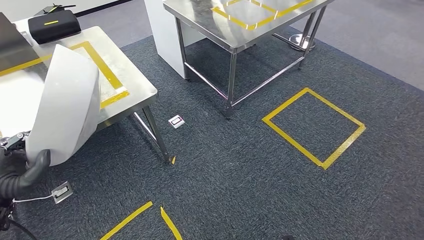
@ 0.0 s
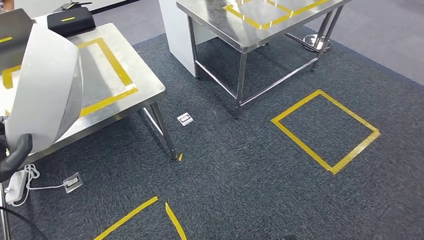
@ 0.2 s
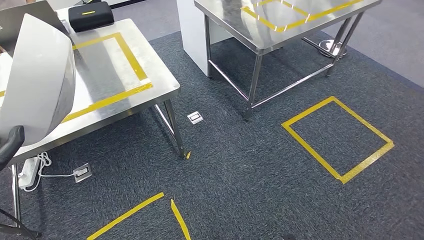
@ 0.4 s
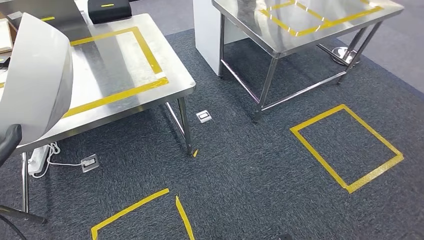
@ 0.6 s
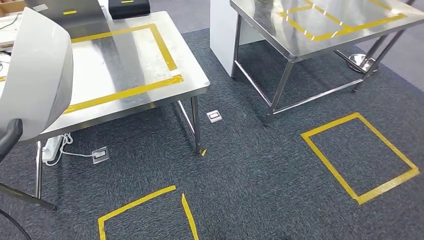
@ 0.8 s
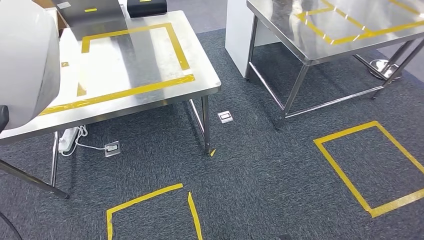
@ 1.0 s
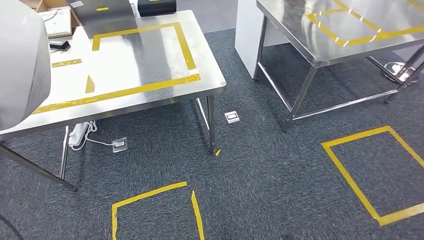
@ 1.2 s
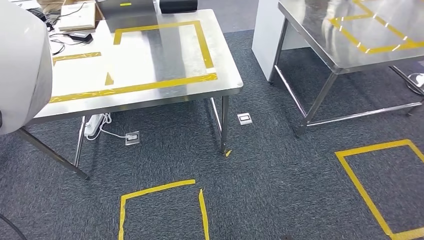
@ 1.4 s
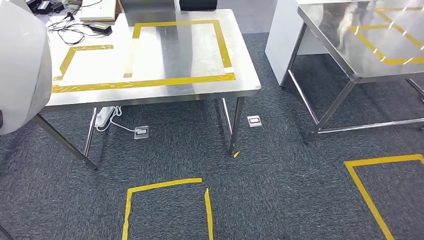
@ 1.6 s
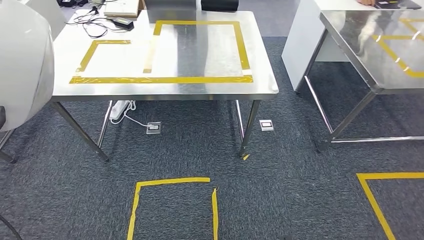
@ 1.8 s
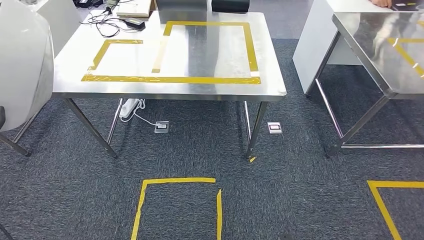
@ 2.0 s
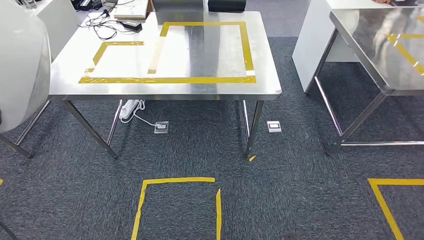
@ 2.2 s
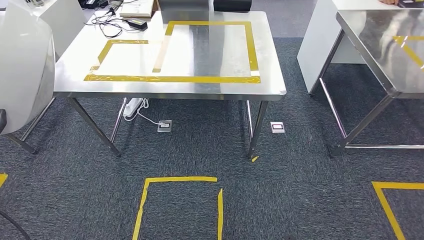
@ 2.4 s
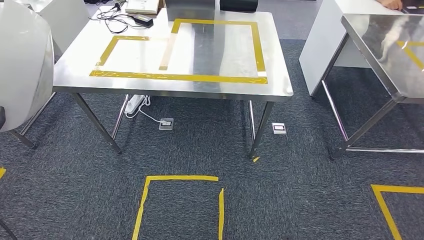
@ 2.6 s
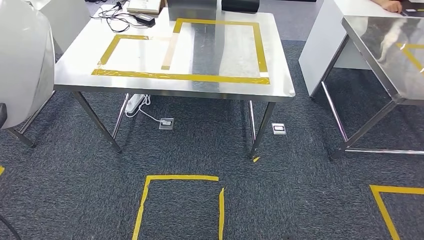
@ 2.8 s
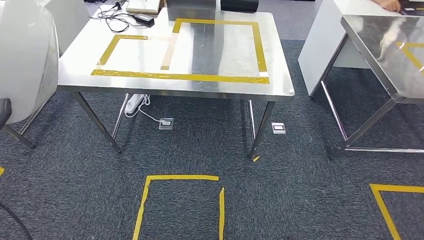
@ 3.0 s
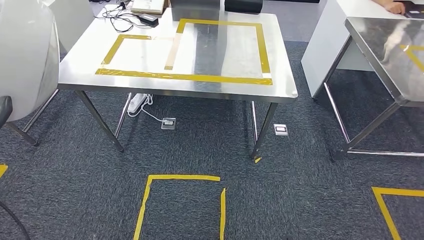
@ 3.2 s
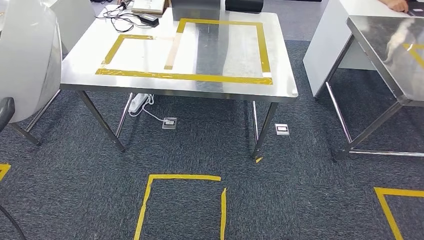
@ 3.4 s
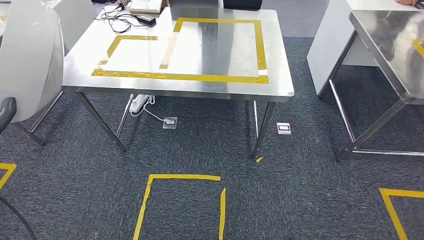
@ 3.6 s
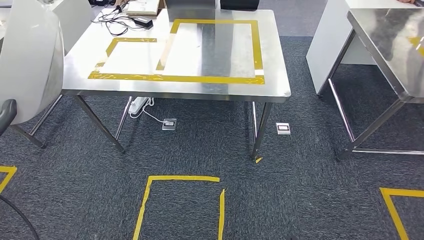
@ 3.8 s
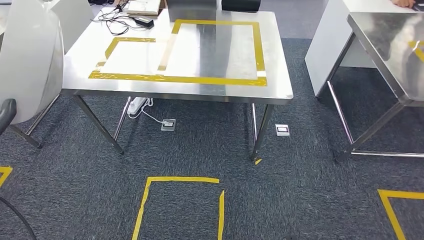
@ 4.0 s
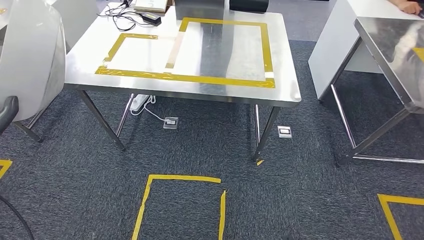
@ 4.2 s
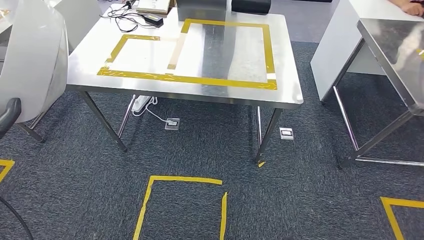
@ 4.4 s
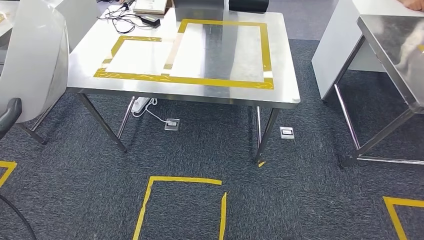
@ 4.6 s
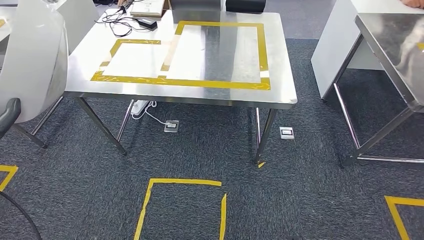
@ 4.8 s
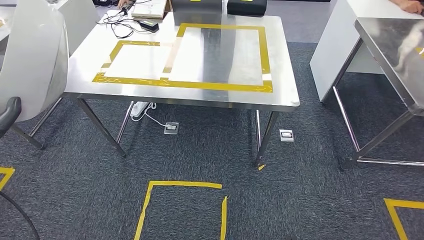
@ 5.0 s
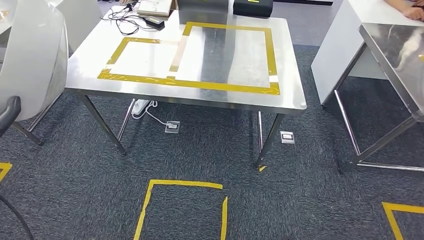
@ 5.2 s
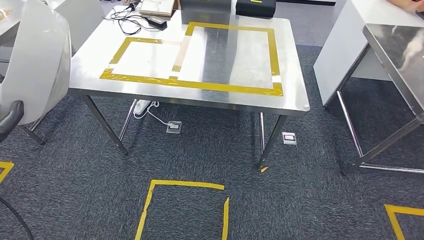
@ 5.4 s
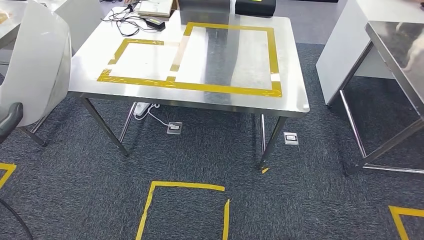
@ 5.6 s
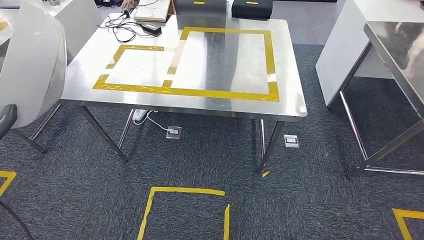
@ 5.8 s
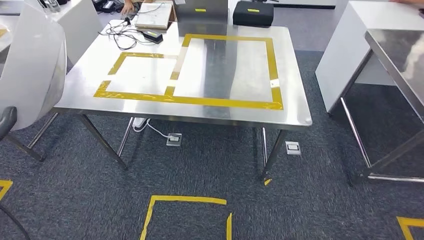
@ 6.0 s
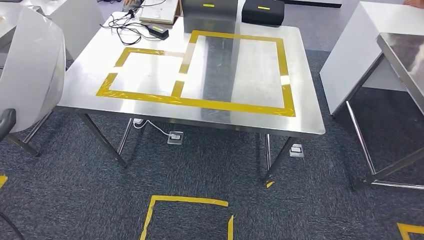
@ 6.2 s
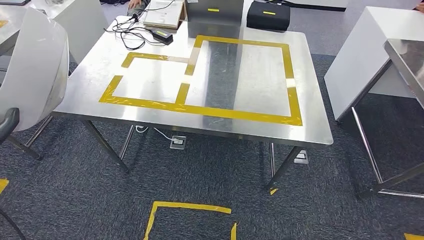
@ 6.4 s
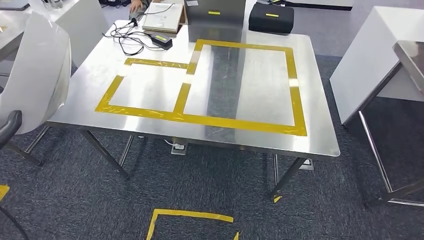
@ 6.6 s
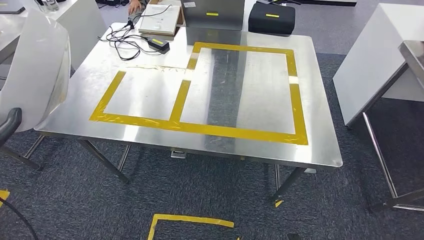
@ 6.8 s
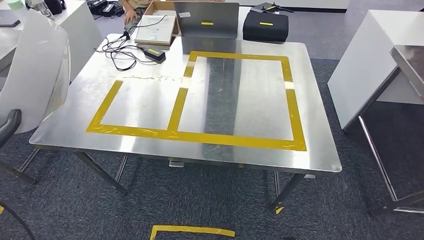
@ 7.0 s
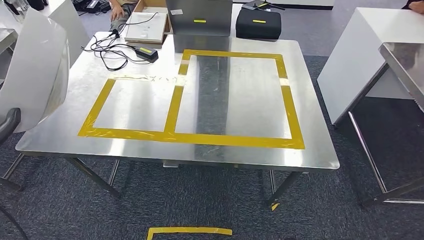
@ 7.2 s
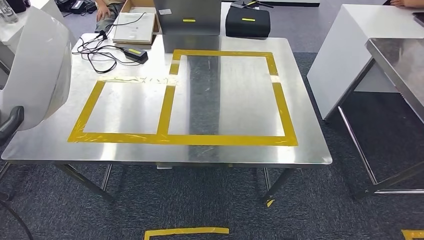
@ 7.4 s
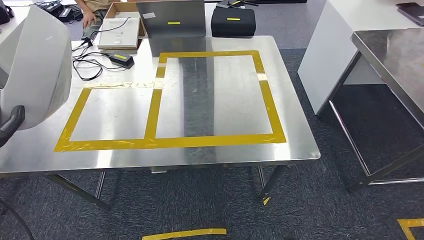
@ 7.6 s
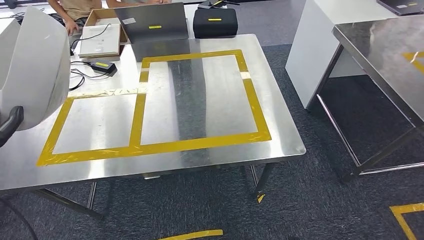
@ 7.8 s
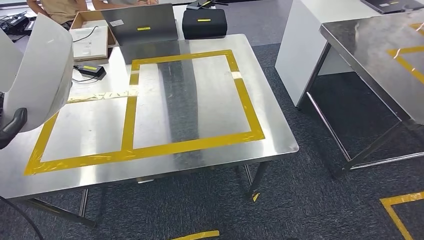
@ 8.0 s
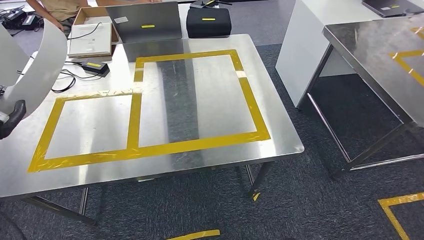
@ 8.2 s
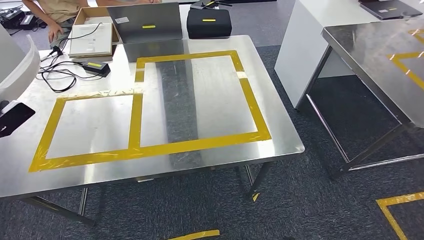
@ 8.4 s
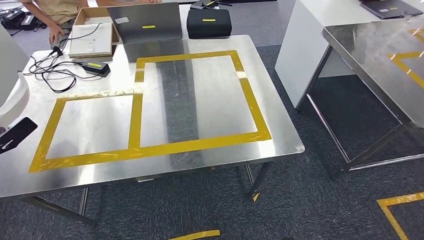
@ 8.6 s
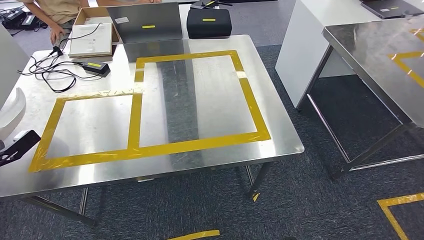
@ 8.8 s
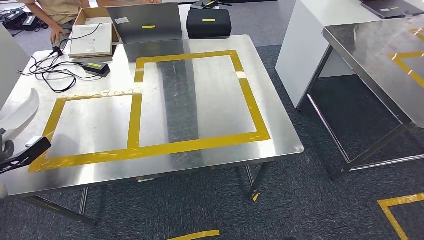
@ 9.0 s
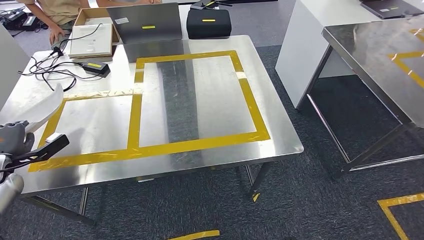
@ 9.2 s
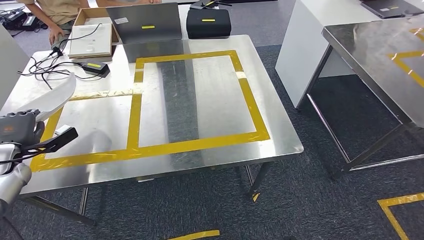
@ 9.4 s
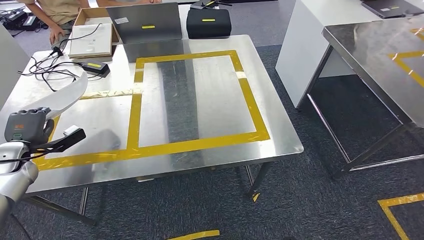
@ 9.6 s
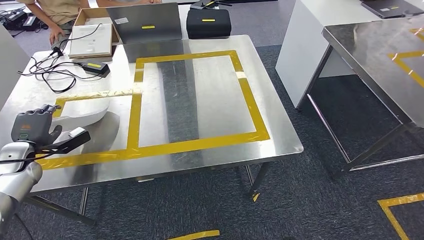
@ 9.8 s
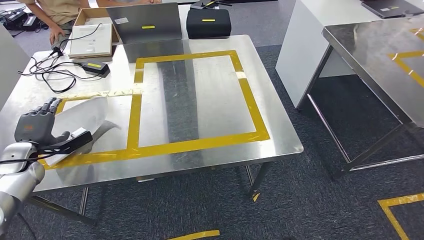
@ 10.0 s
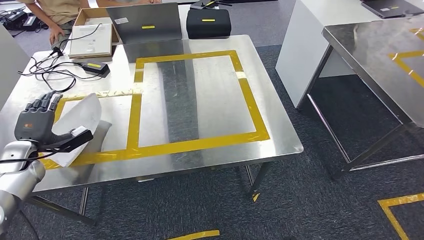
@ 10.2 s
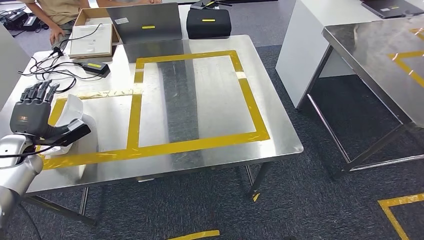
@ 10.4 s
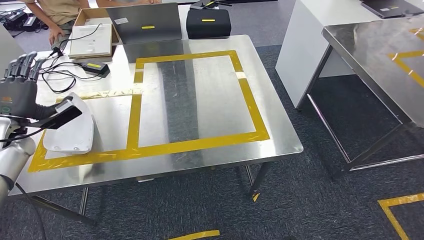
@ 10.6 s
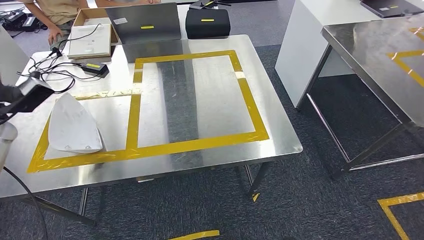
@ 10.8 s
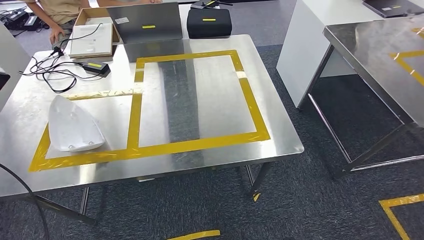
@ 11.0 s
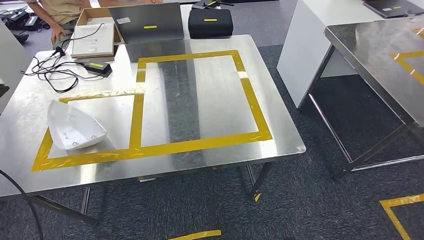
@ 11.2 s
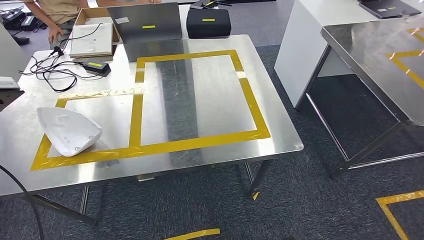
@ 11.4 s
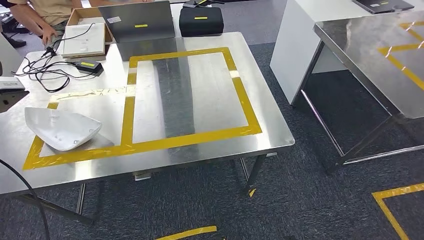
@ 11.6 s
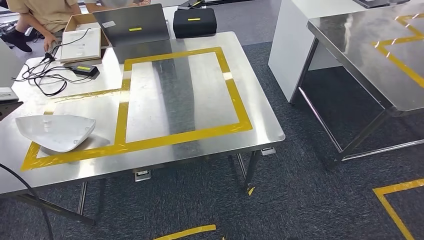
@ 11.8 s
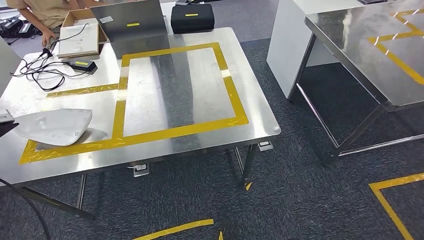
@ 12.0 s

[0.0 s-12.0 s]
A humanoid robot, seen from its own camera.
Step, 0.0 to 7.6 s: Move the small component to the workbench.
Step, 8.0 to 12.0 s: Insert the small component into the corresponding slot on the workbench.
9.0 to 10.4 s: The left hand heads to the right and forward, covering roughly 10 cm.

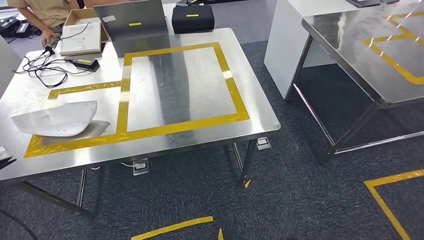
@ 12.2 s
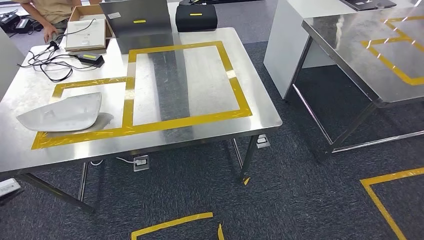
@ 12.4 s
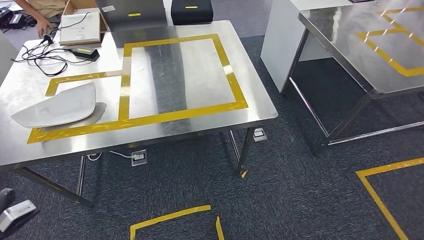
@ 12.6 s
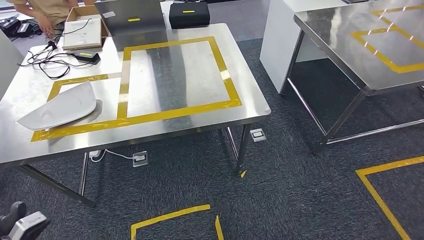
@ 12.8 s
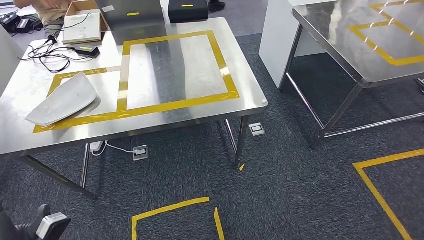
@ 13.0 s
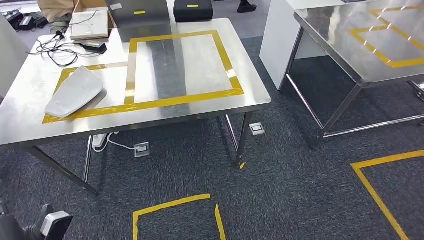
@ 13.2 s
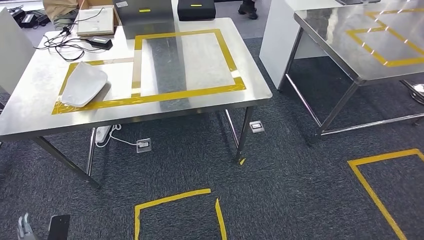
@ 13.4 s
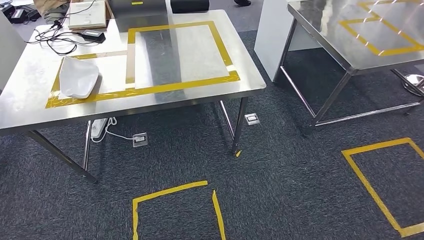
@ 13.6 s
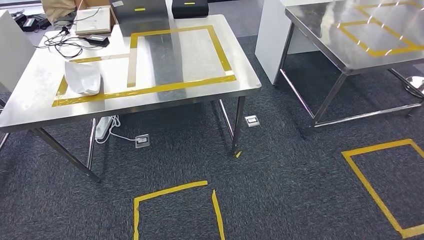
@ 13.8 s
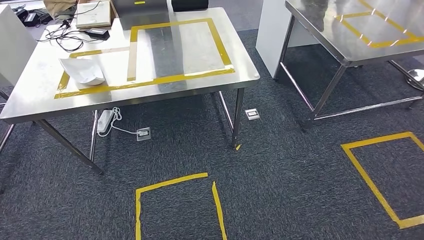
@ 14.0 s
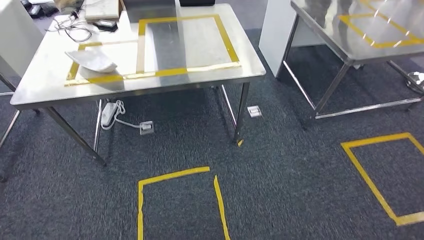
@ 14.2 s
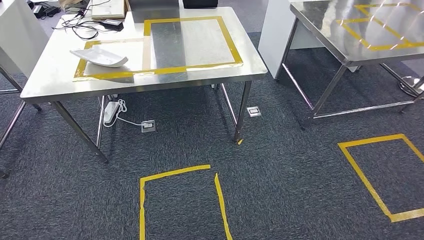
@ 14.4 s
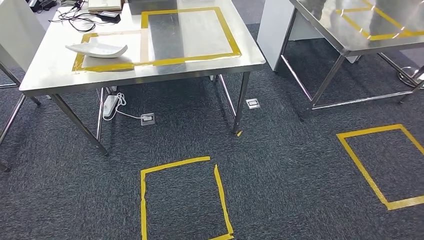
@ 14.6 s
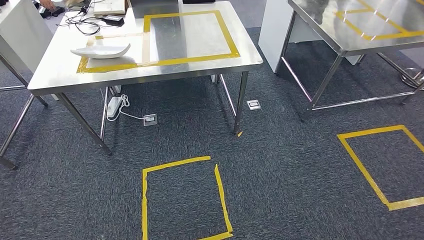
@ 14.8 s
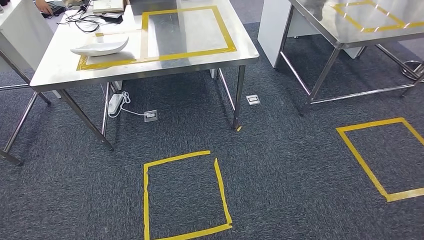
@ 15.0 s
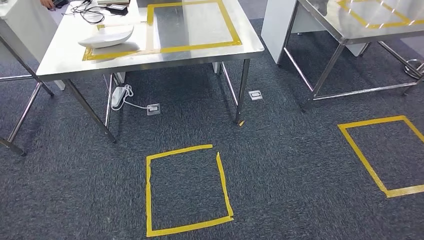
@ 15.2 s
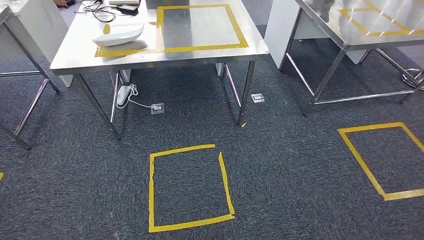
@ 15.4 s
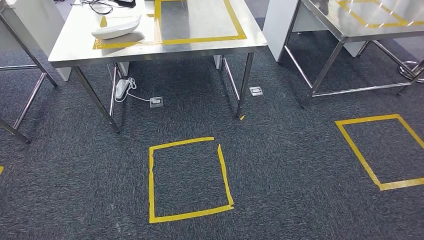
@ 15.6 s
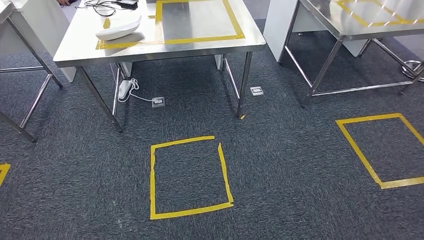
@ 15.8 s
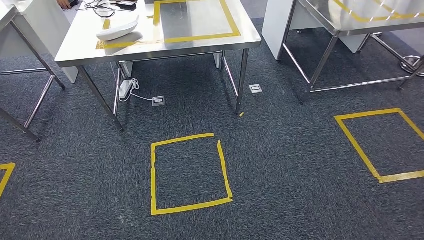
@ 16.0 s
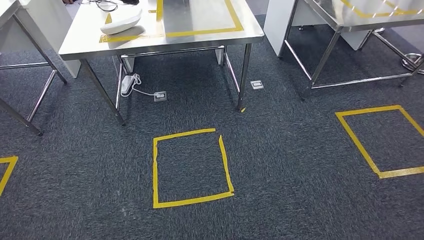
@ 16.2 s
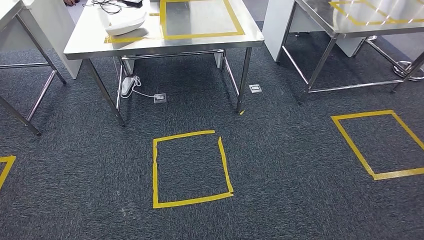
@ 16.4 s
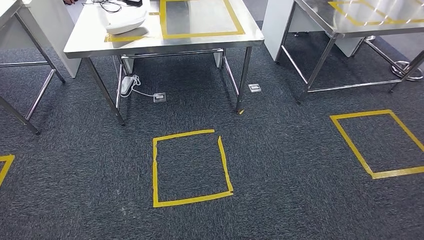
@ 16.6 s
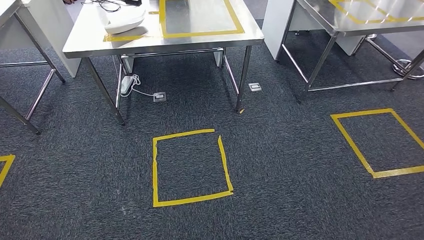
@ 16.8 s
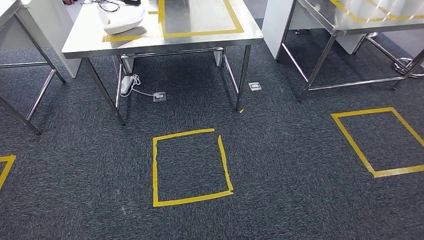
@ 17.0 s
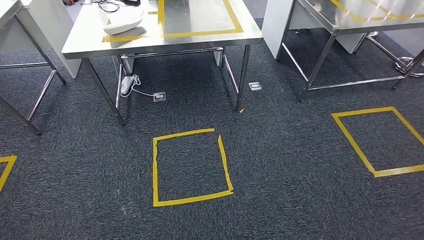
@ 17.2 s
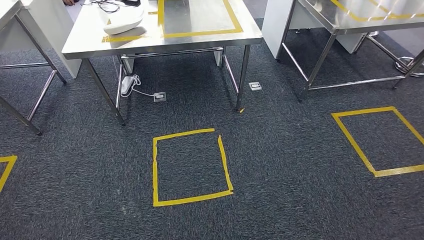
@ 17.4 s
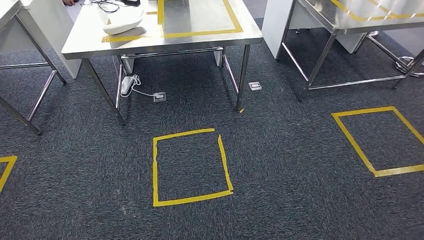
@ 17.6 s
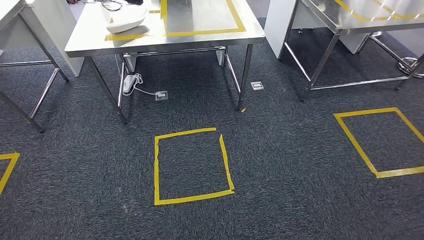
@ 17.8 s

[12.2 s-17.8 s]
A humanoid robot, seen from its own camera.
Step, 12.2 to 17.8 s: Return to the initial position at the workbench.
16.4 to 17.8 s: The right hand travels backward by roughly 10 cm.
